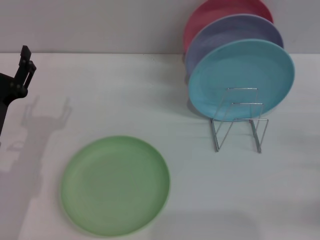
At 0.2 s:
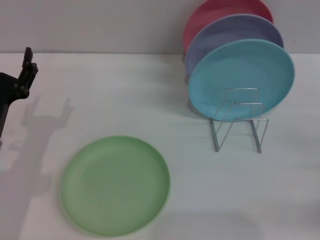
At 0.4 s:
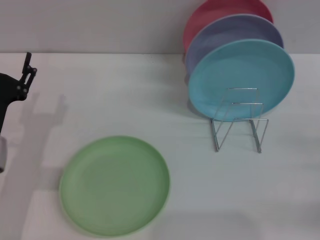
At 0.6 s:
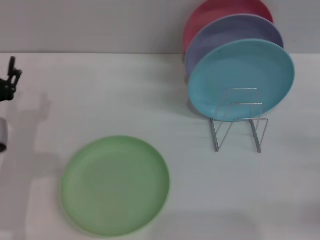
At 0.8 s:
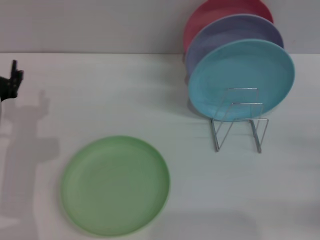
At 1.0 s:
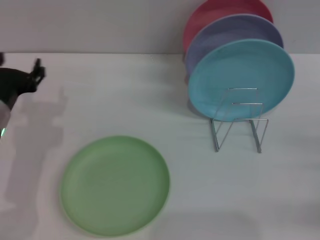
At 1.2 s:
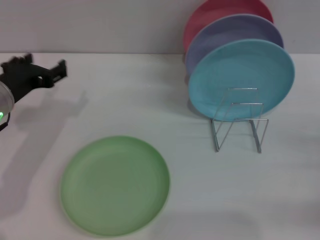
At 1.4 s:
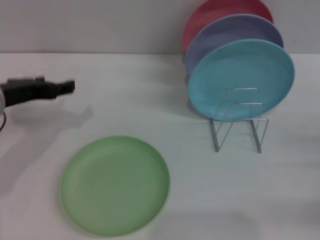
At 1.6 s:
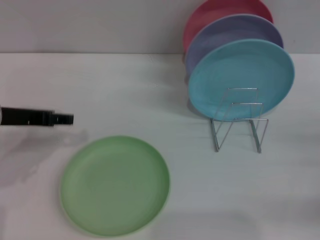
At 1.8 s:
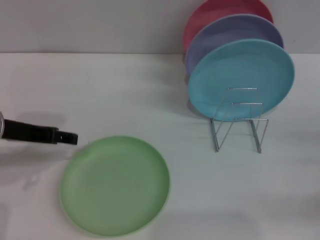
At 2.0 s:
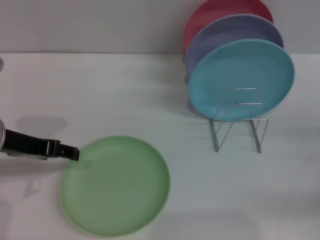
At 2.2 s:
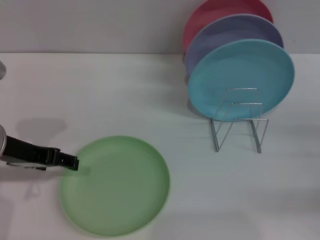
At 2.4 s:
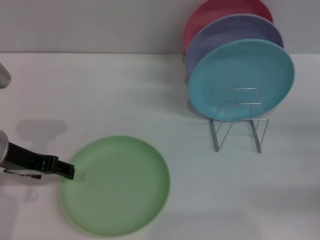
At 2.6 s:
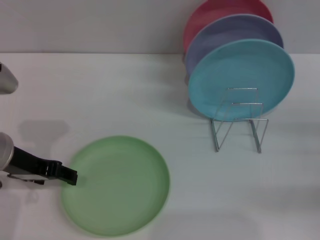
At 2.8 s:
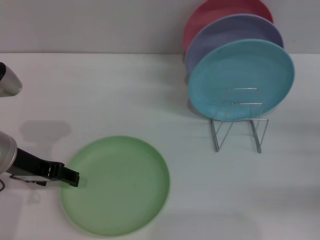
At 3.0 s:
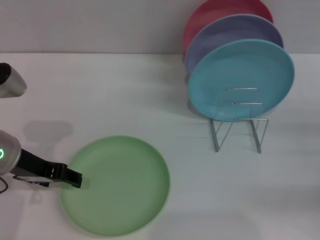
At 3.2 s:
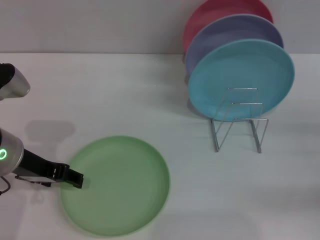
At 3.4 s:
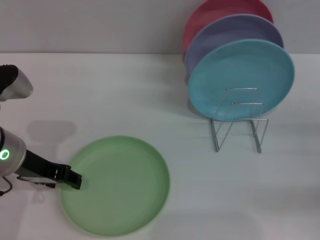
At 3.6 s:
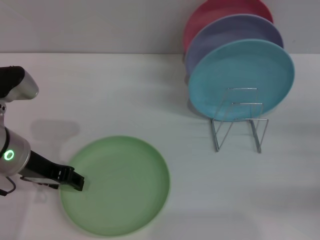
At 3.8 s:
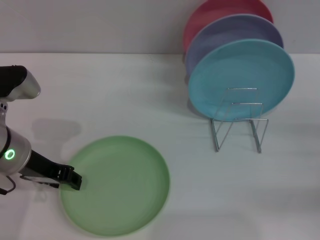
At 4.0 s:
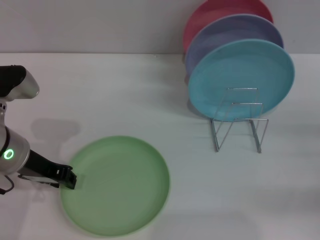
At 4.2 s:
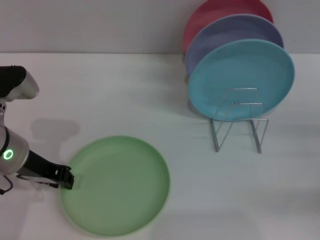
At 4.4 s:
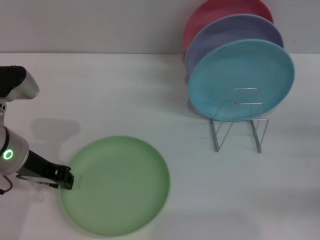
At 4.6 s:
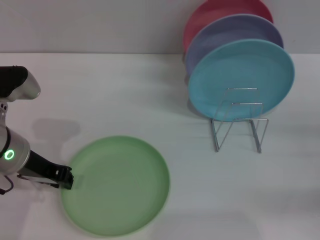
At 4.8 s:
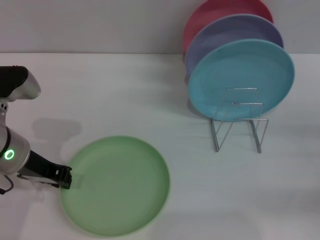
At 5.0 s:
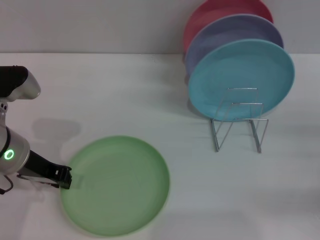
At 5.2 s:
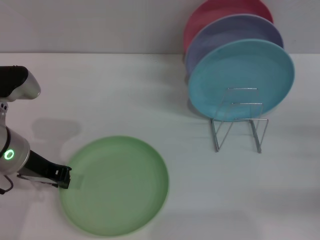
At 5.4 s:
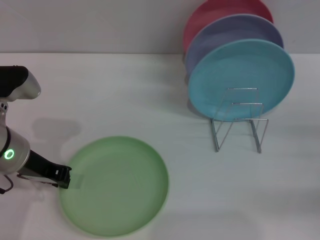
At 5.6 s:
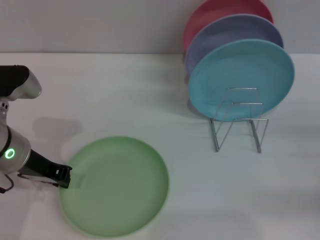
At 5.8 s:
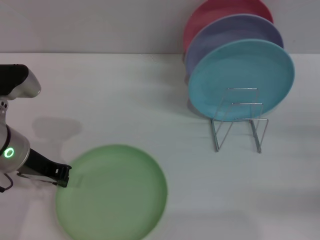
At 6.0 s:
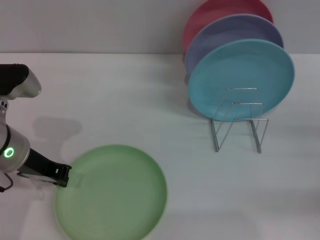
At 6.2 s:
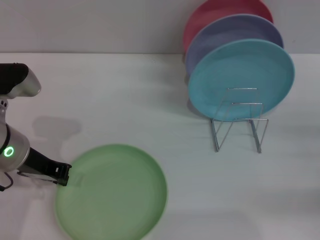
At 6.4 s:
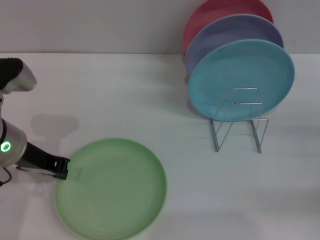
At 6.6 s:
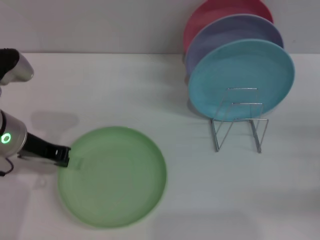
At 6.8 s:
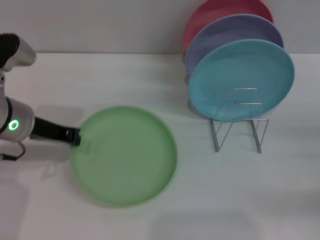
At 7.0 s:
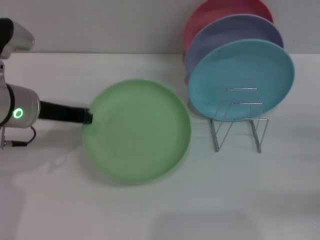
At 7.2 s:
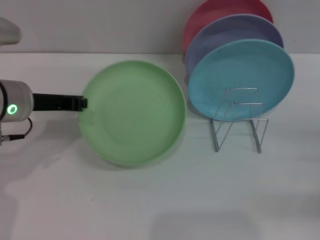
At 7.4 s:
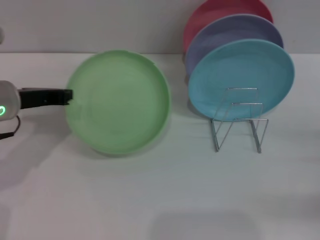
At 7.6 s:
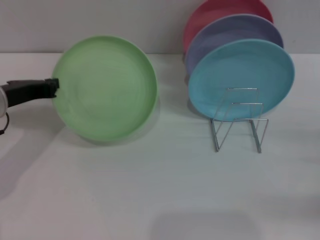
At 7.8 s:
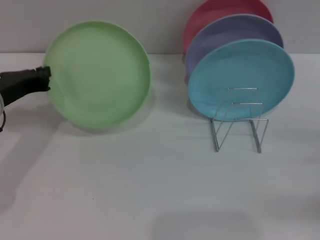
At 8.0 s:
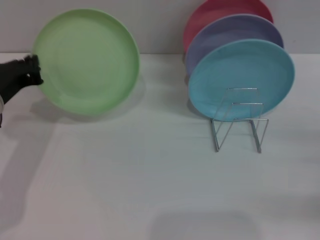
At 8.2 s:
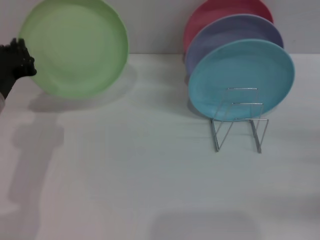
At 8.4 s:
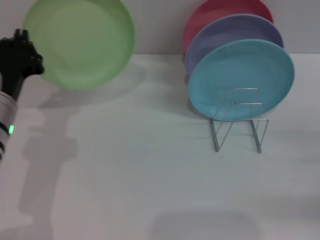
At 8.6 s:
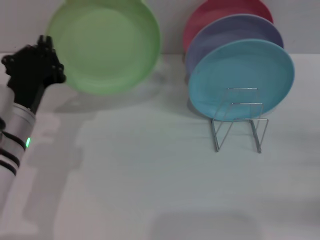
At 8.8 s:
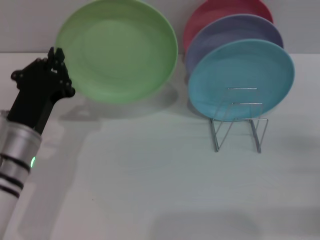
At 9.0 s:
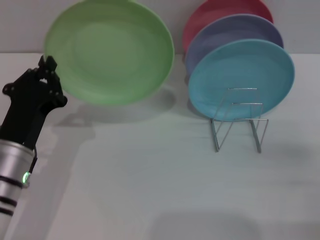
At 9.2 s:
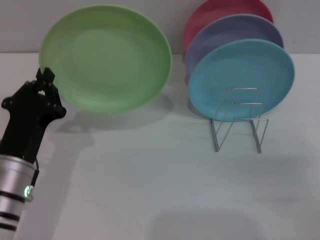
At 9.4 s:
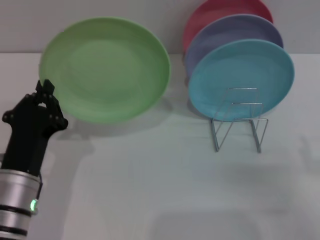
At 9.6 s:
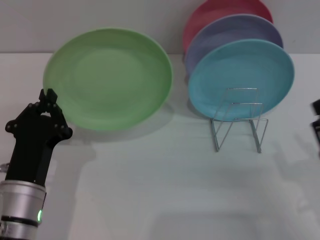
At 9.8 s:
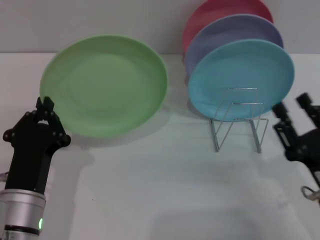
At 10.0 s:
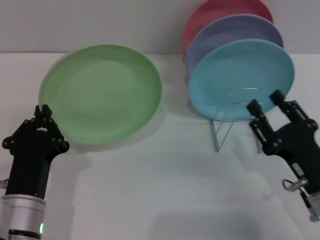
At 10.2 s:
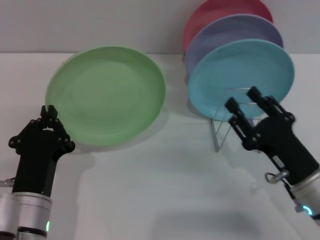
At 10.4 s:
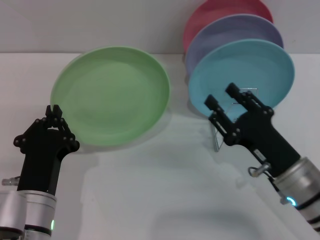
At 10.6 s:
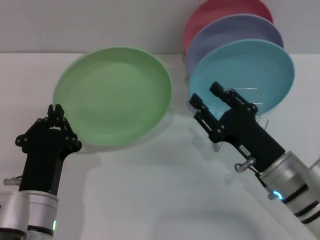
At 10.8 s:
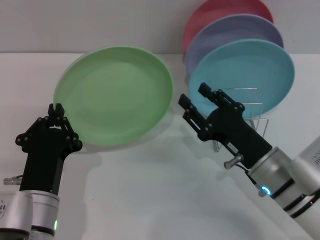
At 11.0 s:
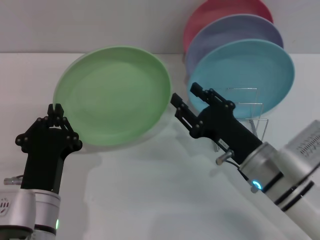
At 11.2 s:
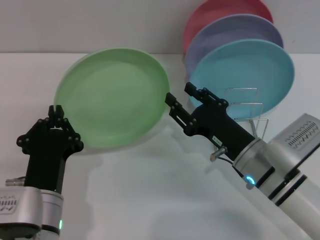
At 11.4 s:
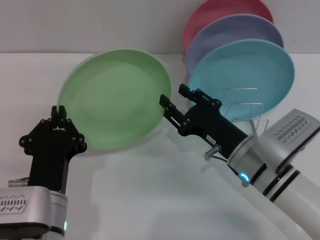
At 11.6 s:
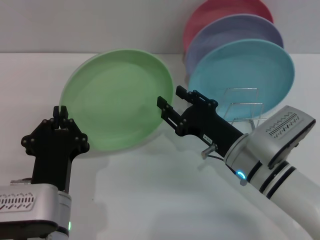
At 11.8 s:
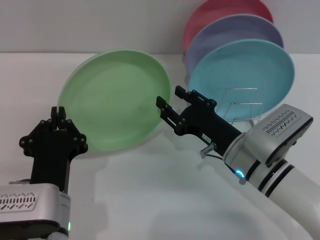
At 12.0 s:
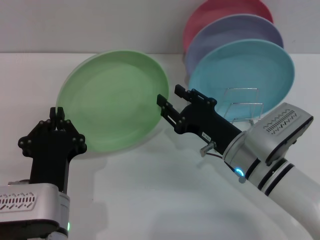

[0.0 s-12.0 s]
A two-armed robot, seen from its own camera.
Task of the whole recording: Grip the plate with one hand, pass it to the other, then set it on the shelf.
Step, 0.0 to 7.2 s: Pick up the plate with the left gripper.
0.0 to 1.6 s: The left gripper travels upward and forward by approximately 10 cm.
3.0 to 4.4 s: The left gripper closes.
4.4 to 6.0 s: Neither gripper changes place.
7.6 to 9.0 s: The left gripper heads backward, downward and to the right, covering approximately 15 cm.
9.0 to 10.4 s: The right gripper heads to the left, covering roughly 15 cm; the left gripper moves backward, roughly 5 cm.
10.4 to 12.0 s: The right gripper heads to the left and forward, covering some 10 cm.

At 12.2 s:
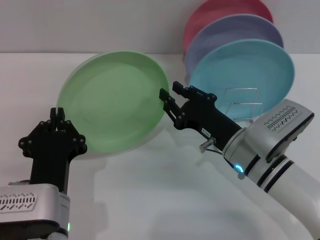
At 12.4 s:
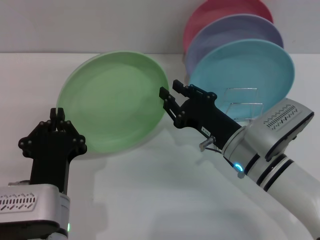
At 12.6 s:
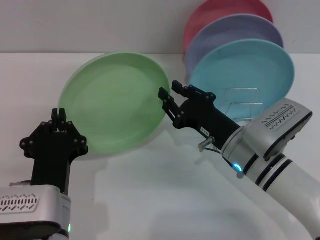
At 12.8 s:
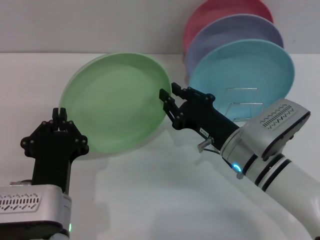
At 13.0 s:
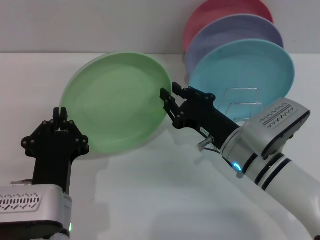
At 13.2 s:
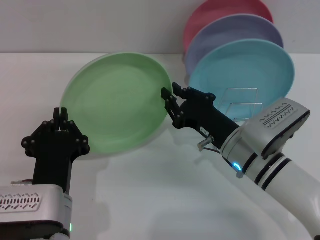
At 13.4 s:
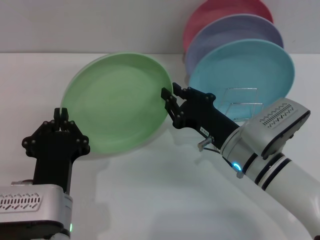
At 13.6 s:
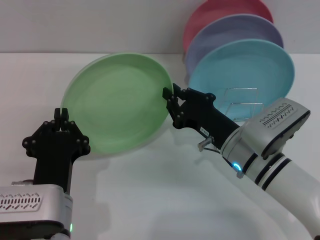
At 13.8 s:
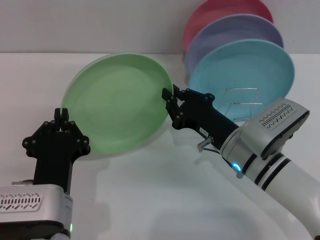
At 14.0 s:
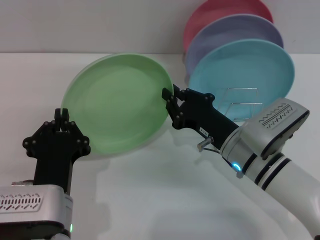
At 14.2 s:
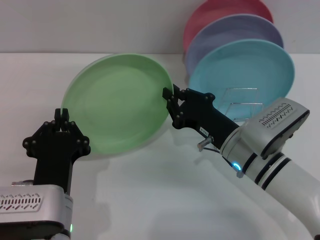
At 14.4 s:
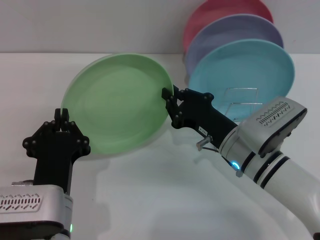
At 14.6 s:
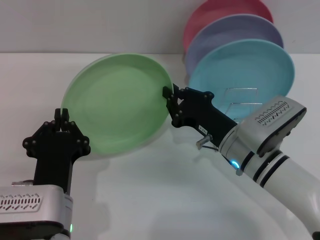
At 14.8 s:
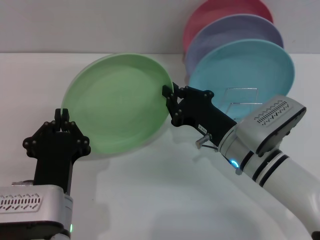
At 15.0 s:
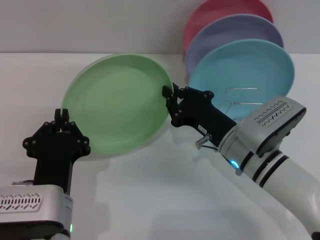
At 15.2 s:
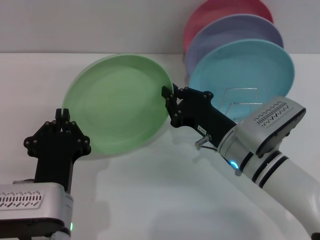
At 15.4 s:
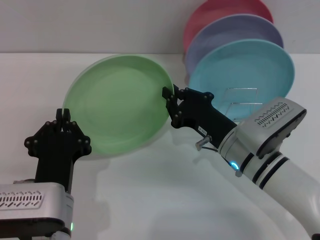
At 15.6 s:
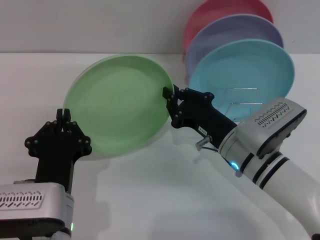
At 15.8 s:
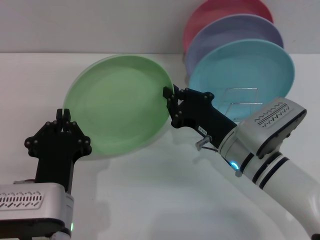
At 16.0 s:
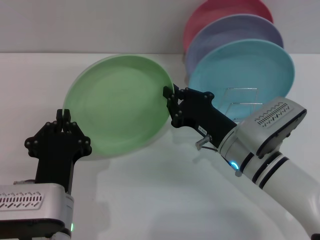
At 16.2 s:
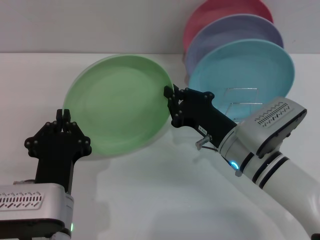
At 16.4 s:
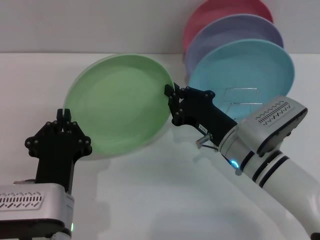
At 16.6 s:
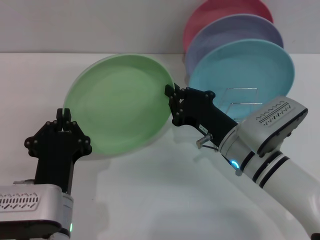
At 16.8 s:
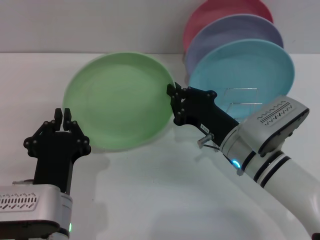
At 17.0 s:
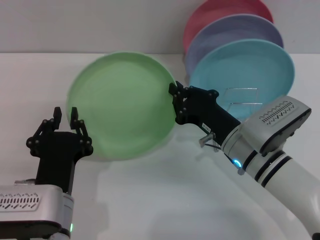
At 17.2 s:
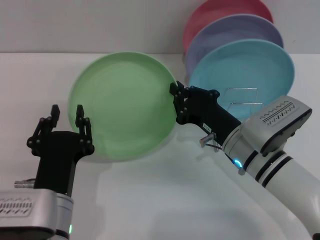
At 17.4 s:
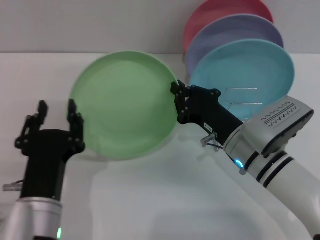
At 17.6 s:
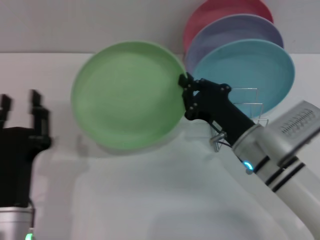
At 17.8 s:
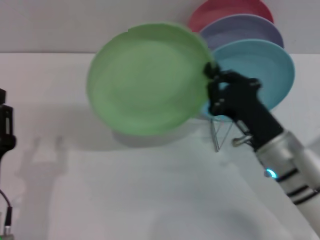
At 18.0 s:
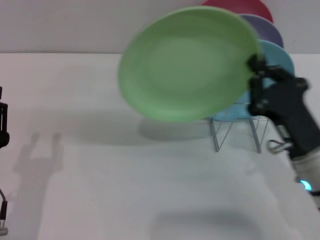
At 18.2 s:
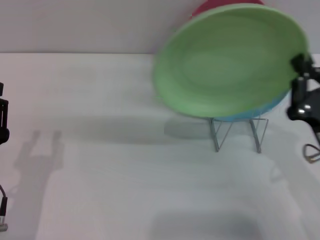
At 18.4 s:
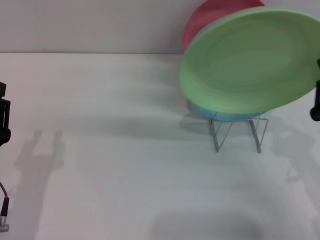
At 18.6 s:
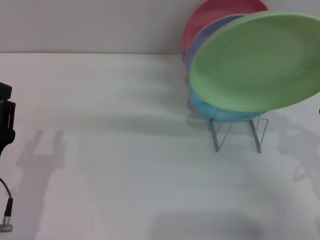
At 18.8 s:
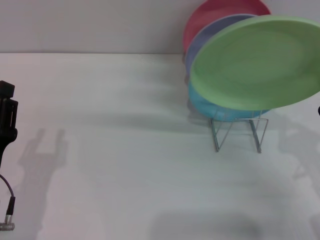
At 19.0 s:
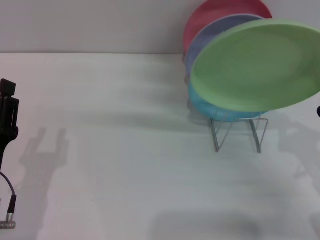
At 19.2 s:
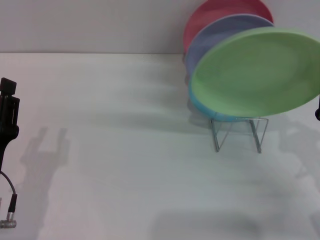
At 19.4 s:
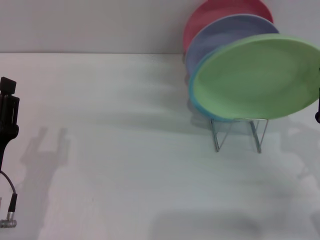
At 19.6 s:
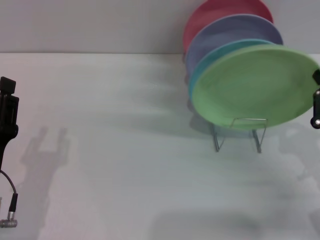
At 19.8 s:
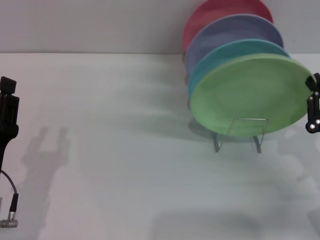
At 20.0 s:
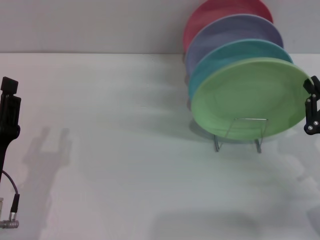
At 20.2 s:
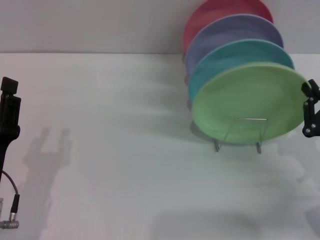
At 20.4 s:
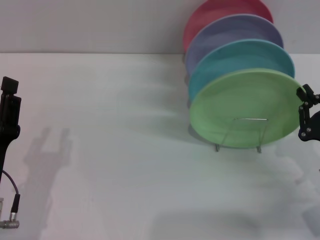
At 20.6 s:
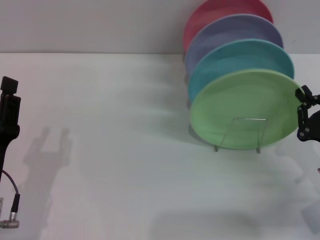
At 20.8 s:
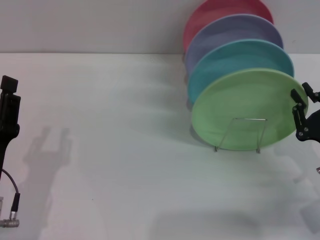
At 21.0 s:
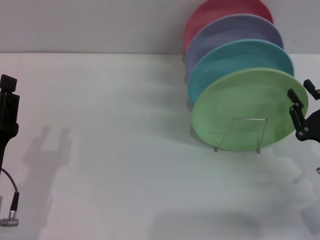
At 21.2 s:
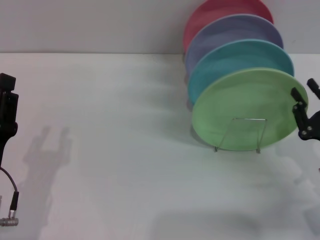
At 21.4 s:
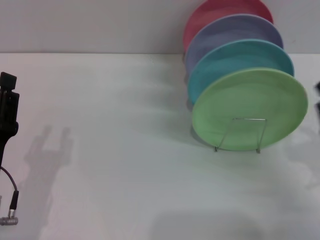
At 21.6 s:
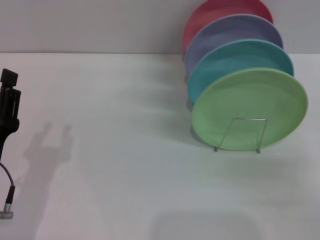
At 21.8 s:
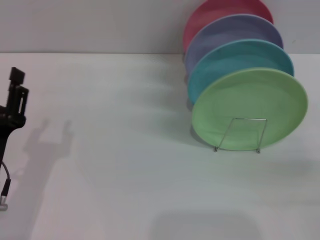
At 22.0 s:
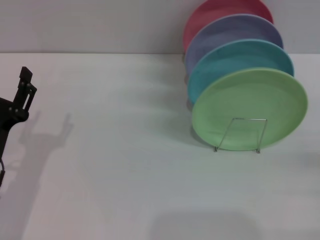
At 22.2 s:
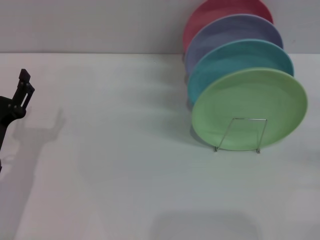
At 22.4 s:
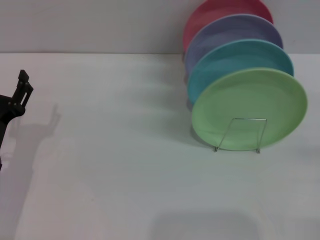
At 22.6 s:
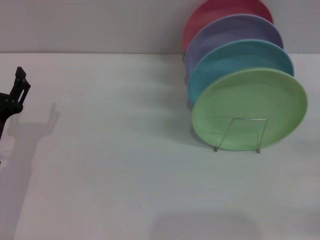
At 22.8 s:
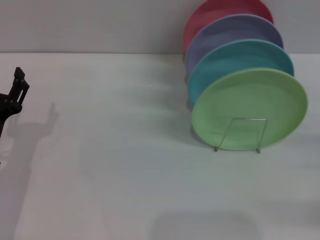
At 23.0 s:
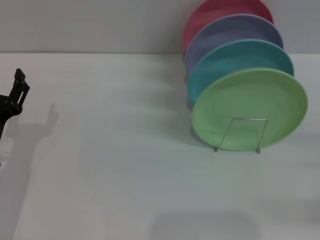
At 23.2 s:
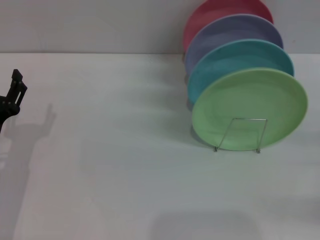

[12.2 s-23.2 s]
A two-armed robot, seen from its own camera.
Task of the whole recording: Grip the plate with one hand, pass it to the other, then set it on the shelf.
Step, 12.2 to 17.0 s: Pass the plate from the left gripper to the right gripper.
Step, 17.2 to 21.4 s: Place the plate on the shelf with the right gripper.
12.2 to 17.0 s: Both grippers stay about where they are.
17.0 to 18.4 s: The right gripper heads to the right and backward, covering some 15 cm, while the left gripper travels to the left by about 10 cm, and opens.
20.0 to 21.6 s: The right gripper travels backward by roughly 5 cm, and opens its fingers.
21.6 to 23.2 s: The right gripper travels to the right and forward by about 10 cm, and opens, while the left gripper shifts about 5 cm forward, and opens up.
